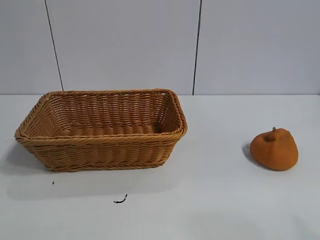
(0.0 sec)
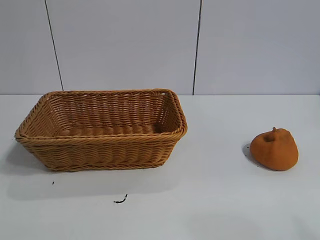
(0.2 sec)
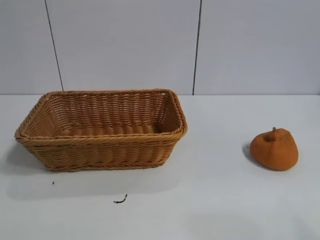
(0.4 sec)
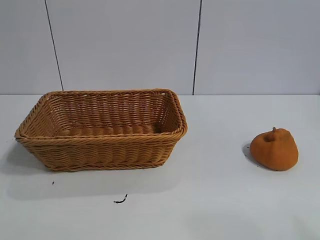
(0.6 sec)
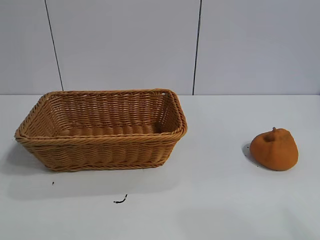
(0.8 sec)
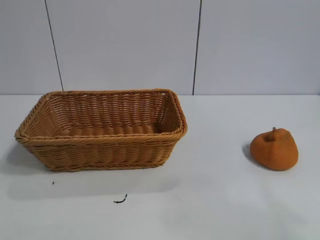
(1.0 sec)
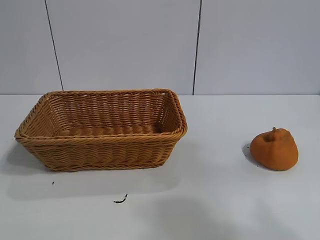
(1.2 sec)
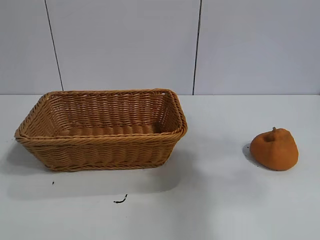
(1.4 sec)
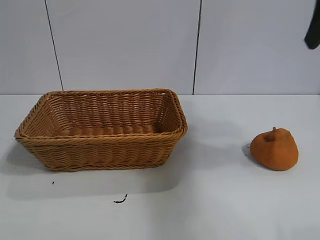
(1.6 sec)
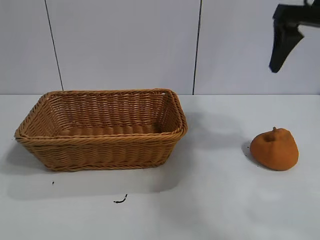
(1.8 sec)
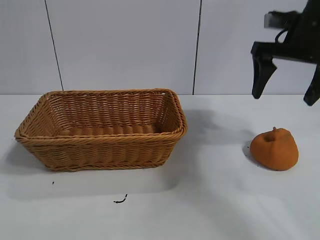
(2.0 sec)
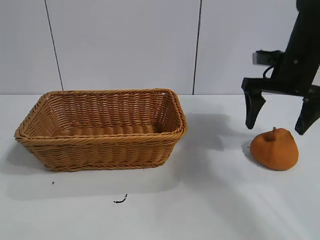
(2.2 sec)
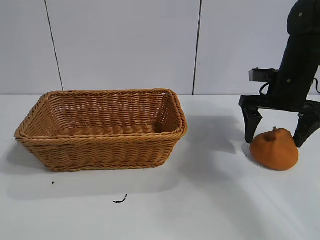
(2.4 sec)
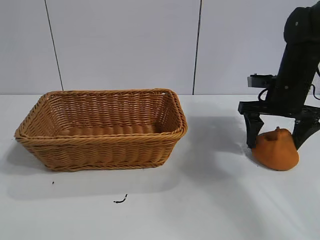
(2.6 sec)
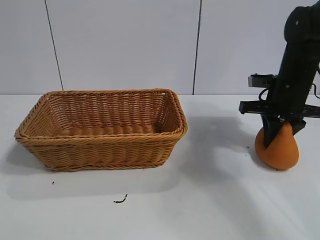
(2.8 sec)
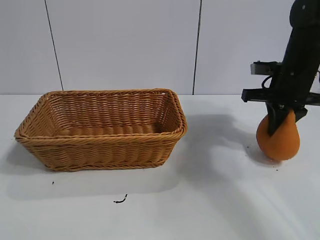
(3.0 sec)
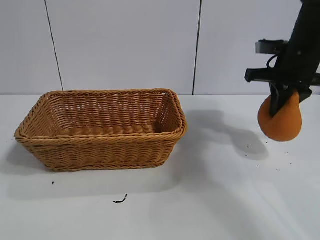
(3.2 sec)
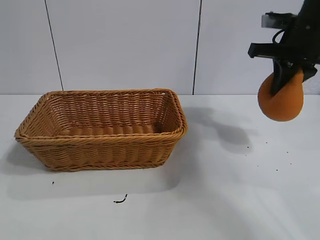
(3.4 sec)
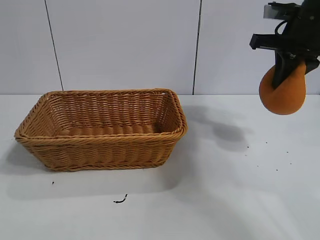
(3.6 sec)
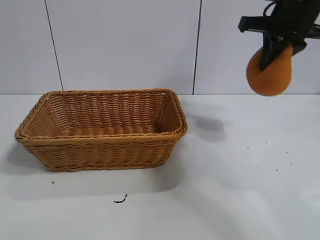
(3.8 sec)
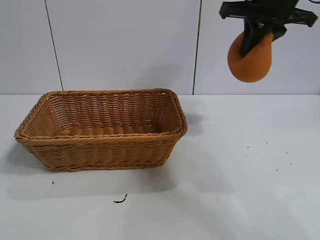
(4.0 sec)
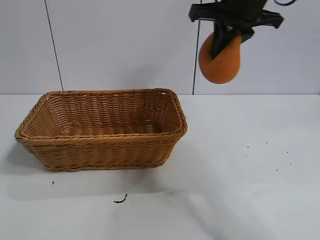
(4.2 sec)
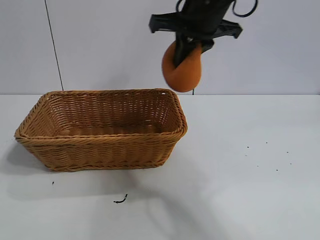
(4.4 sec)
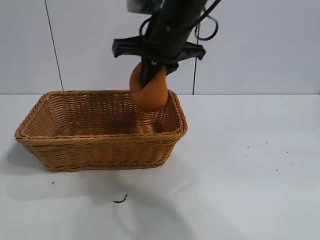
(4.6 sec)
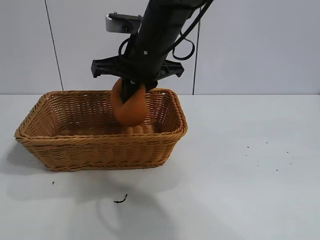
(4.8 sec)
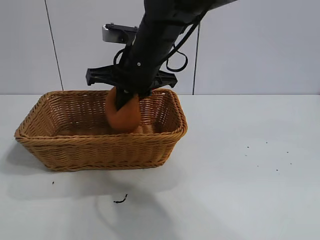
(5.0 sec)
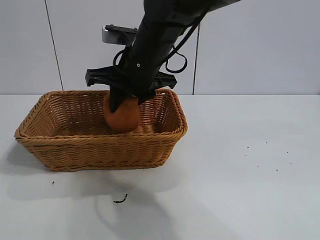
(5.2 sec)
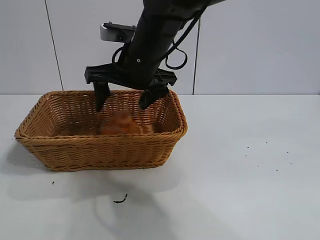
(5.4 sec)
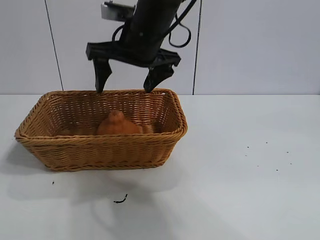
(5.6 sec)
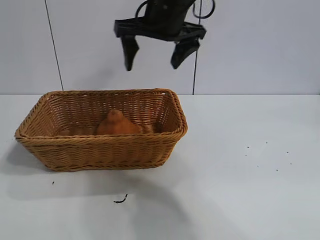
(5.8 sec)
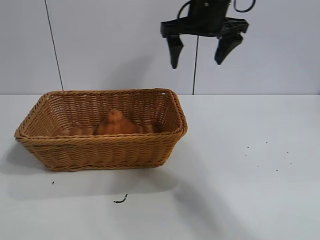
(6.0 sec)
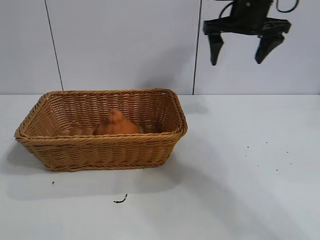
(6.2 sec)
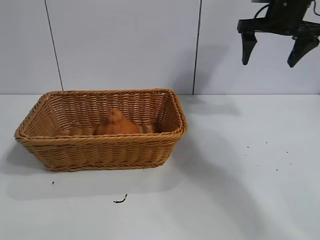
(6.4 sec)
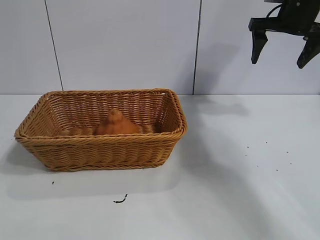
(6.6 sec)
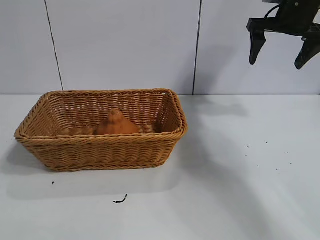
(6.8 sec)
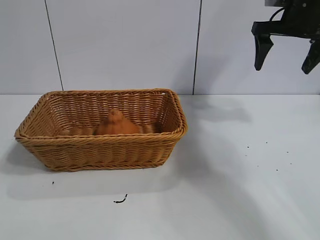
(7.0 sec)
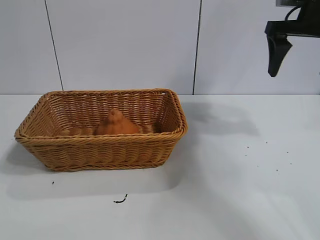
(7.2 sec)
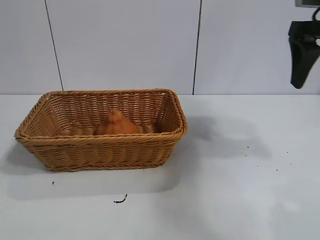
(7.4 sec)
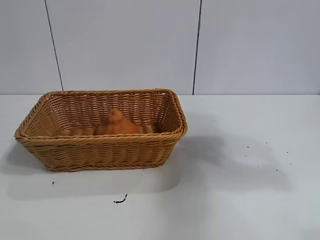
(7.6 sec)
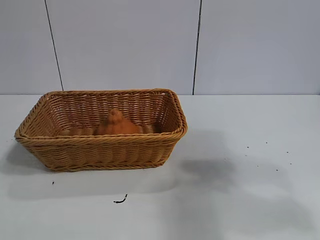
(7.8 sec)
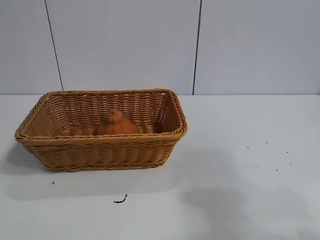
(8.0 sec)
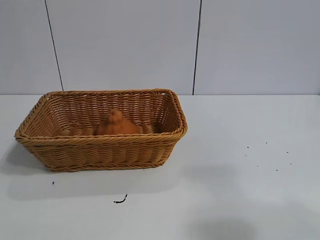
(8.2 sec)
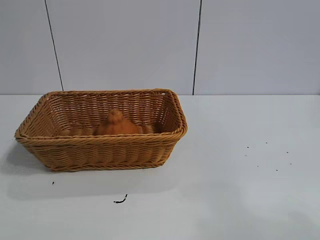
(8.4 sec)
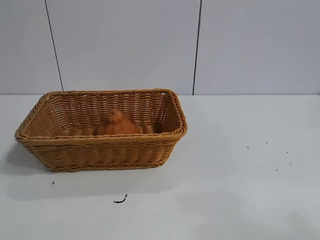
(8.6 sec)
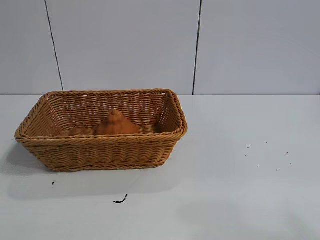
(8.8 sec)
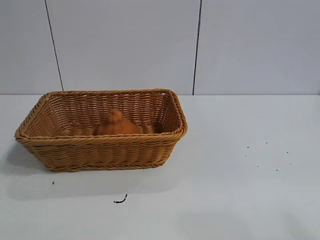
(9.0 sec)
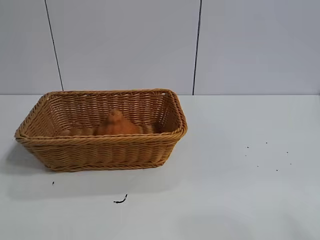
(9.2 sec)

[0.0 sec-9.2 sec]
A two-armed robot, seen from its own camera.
Task of the whole recording: pick up the orange and put it into the basket.
Step, 0.8 sec to 2.8 sec: Grasp the orange with right gripper.
Step, 3.0 sec to 5.4 sec: Place the orange in the basket with right gripper.

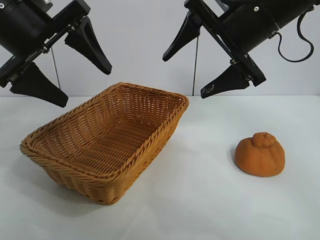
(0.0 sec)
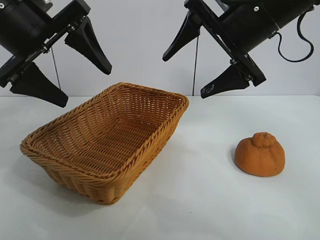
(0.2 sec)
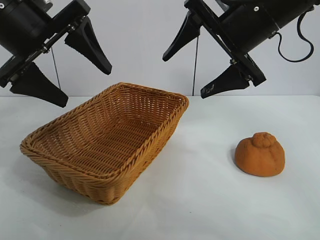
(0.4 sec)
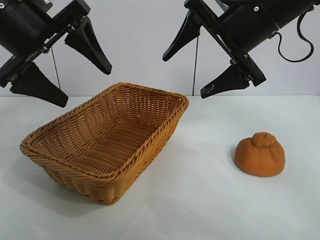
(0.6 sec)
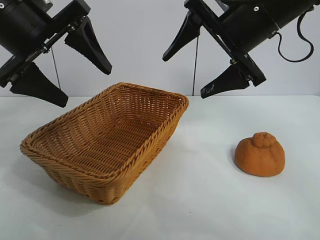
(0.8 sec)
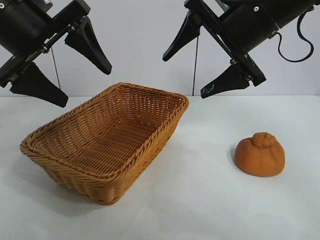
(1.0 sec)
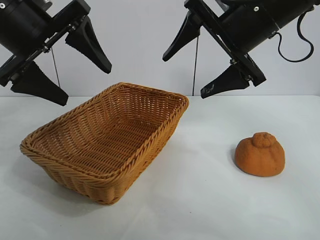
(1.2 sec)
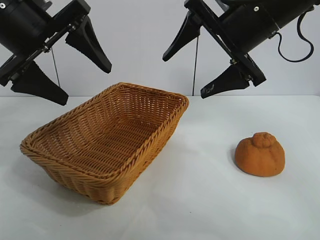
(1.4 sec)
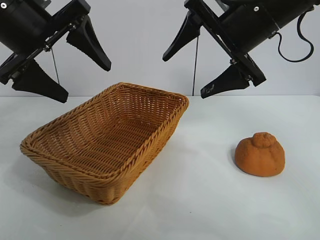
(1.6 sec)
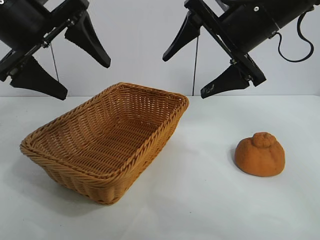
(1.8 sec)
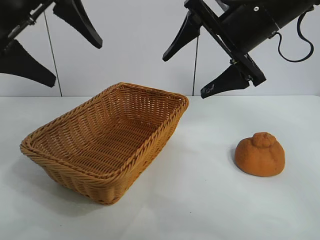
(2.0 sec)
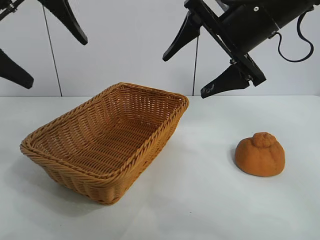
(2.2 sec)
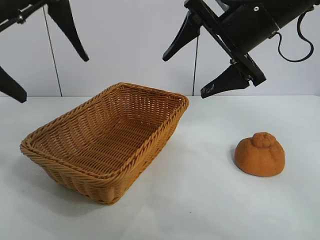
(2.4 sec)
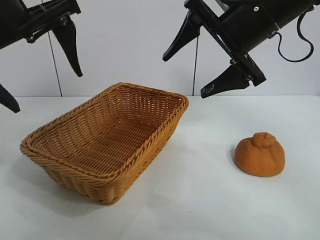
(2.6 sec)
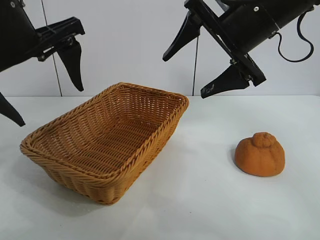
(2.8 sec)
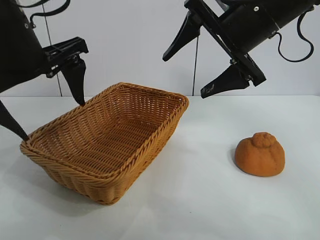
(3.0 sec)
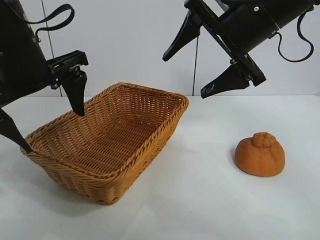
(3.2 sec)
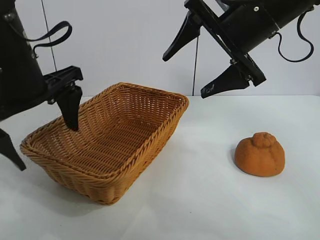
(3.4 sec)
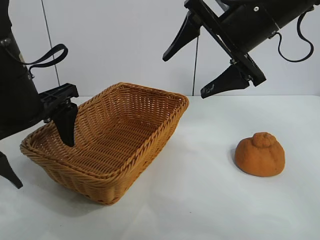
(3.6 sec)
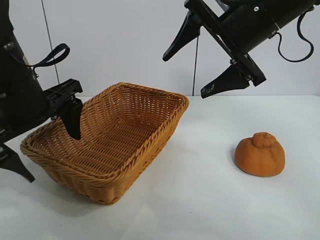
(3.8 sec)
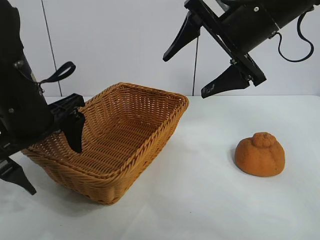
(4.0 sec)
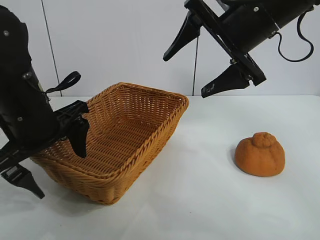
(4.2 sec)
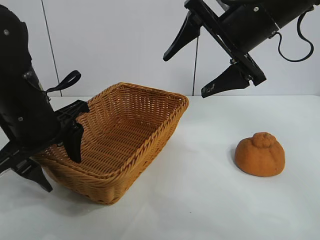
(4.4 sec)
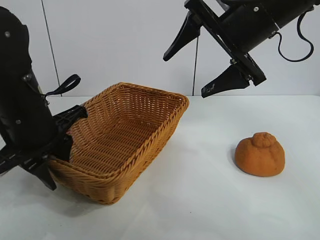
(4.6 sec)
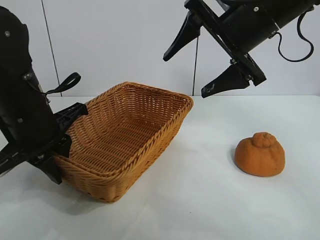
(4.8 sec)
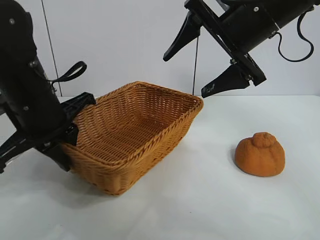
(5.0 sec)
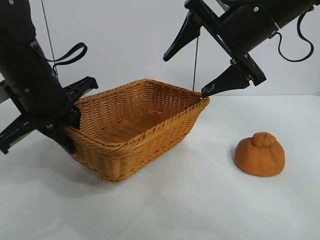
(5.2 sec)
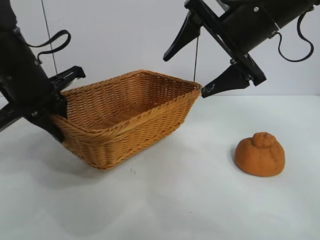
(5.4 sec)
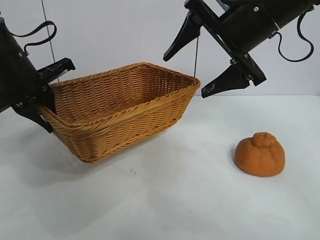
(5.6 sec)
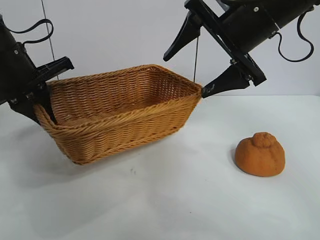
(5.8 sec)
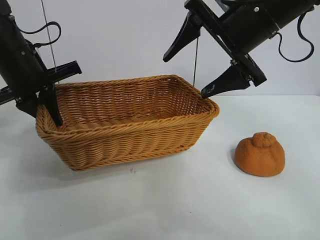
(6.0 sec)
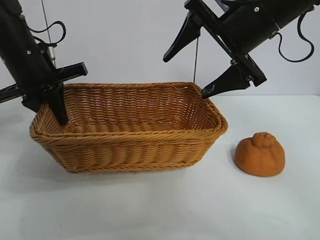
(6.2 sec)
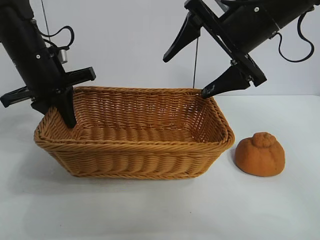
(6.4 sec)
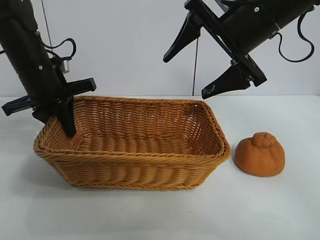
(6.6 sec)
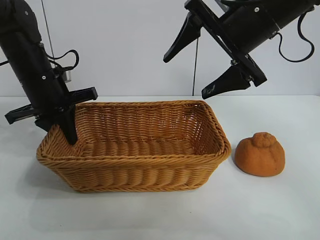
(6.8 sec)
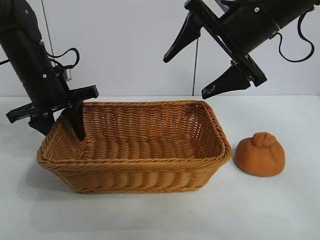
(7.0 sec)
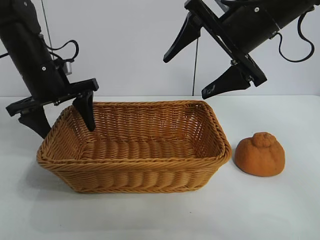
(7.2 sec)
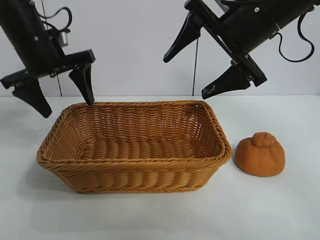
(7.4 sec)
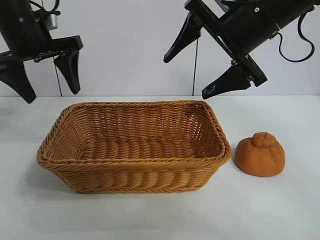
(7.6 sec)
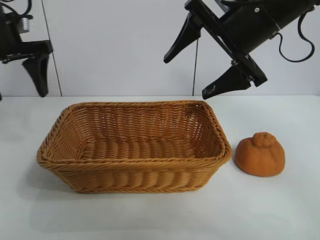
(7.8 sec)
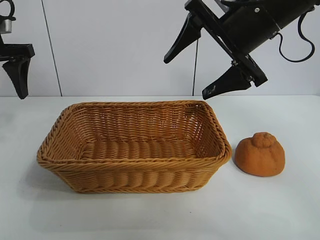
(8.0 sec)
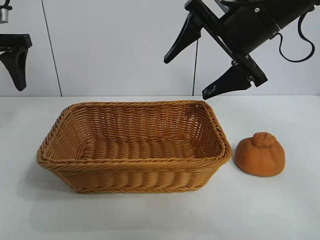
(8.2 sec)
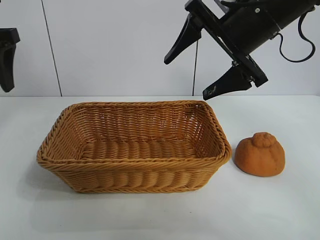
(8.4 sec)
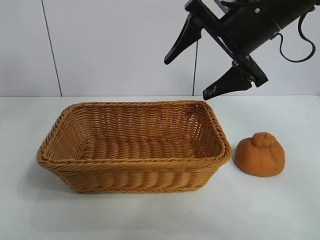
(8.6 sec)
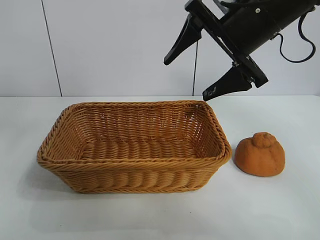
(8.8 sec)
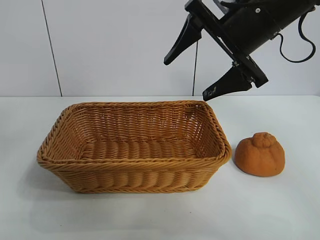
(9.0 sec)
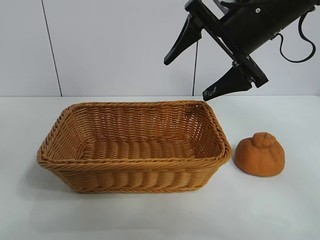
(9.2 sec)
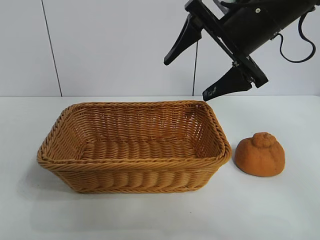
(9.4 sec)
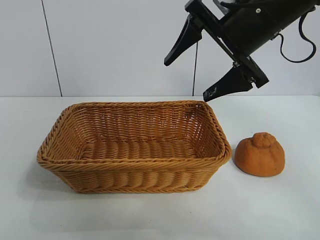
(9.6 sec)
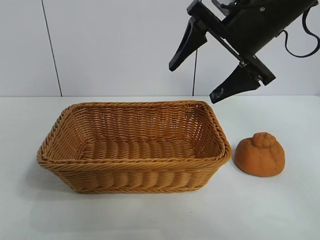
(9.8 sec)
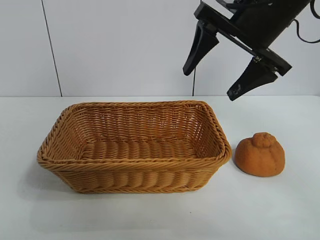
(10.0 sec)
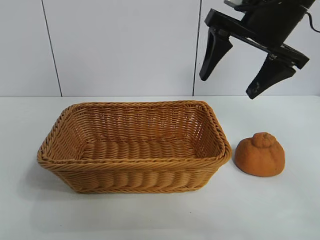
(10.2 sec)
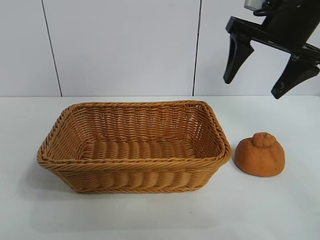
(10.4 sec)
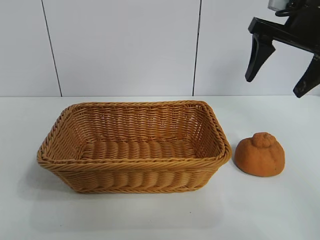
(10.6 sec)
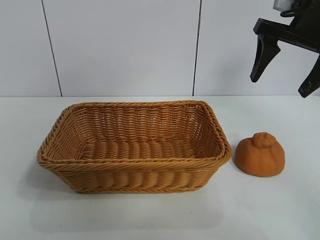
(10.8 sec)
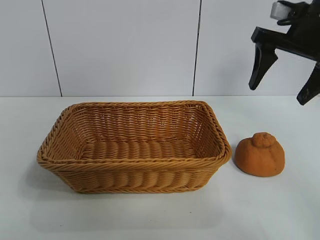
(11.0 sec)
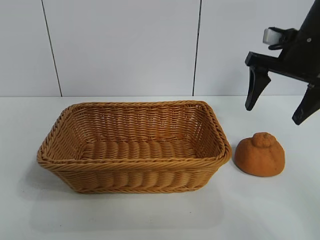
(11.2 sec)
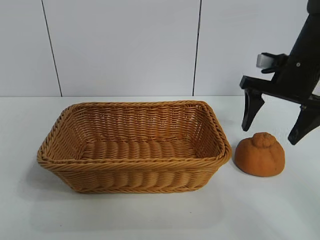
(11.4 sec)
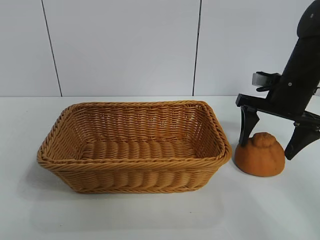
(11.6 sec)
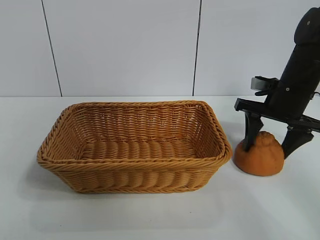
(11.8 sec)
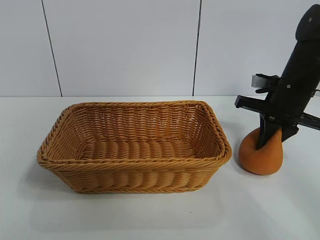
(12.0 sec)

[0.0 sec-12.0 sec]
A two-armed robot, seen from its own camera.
Task of the whole recording: pick up the orange and put it into the basket.
Step, 1.2 sec to 4.6 sec: Grasp the basket with left gripper.
Step, 4.8 sec to 7.2 sec: Place the basket in the center of view with left gripper.

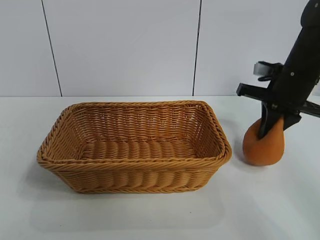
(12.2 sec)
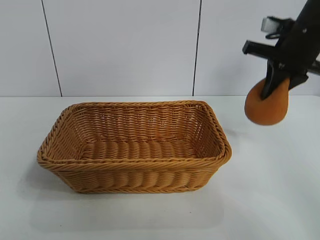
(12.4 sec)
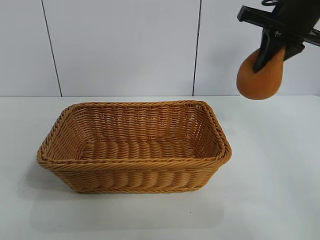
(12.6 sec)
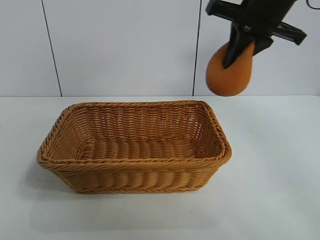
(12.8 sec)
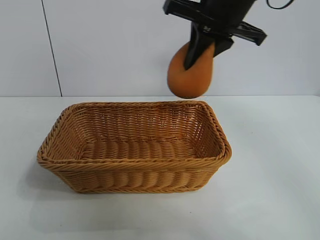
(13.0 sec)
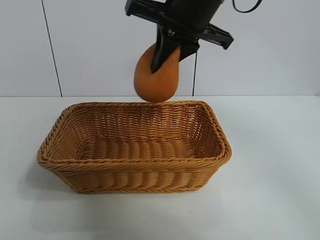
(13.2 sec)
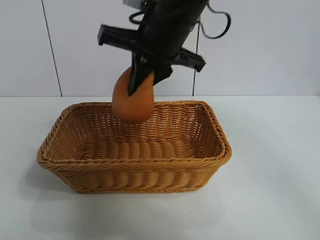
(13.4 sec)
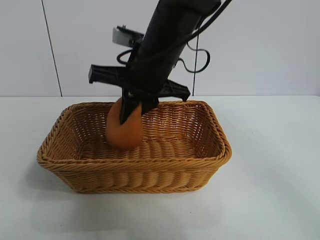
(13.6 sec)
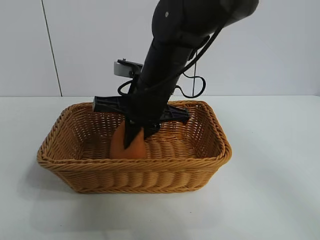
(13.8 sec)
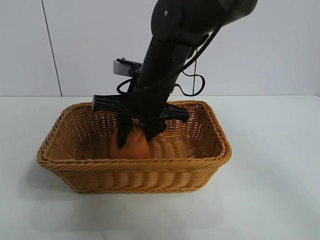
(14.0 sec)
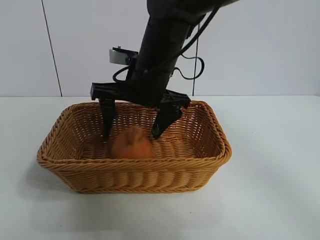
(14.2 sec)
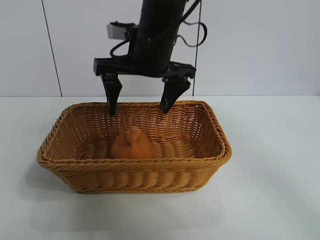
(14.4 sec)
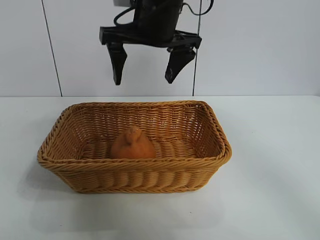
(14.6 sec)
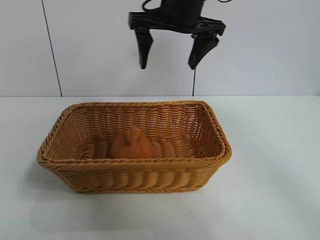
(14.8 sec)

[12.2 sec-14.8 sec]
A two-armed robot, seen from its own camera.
Task of the whole recording: pick up the orange and put it into the basket.
Step, 12.4 sec to 14.2 sec: Place the orange in the basket with right gripper.
